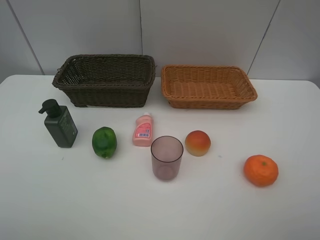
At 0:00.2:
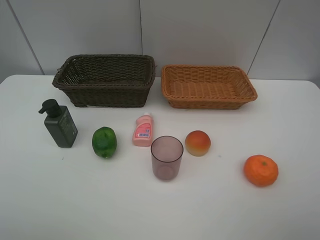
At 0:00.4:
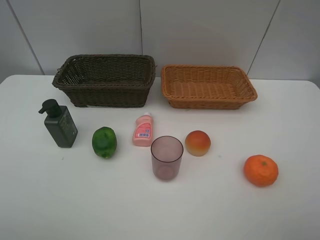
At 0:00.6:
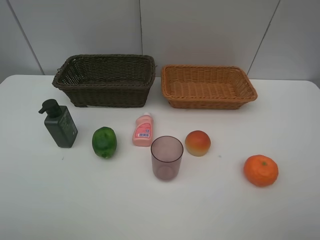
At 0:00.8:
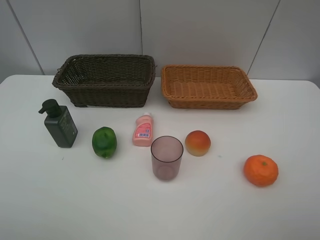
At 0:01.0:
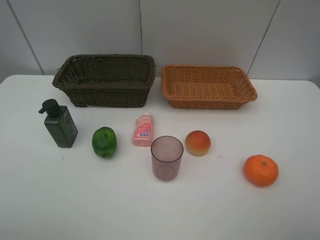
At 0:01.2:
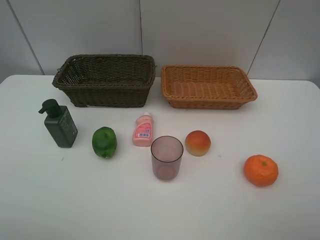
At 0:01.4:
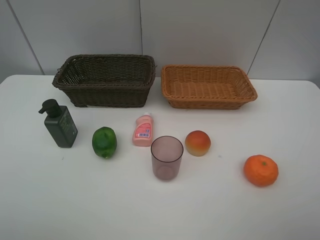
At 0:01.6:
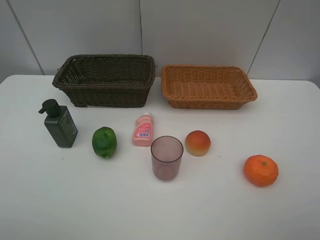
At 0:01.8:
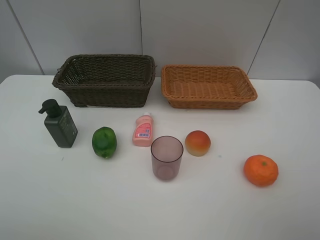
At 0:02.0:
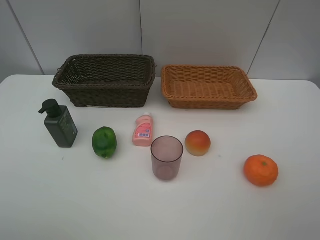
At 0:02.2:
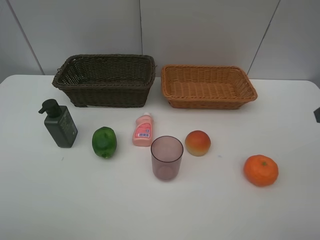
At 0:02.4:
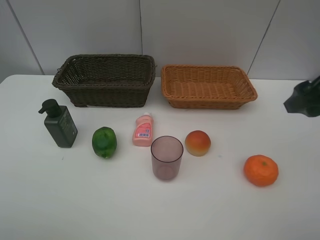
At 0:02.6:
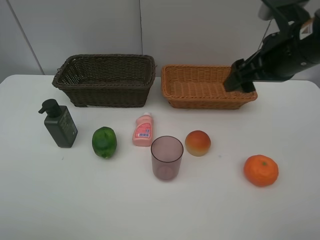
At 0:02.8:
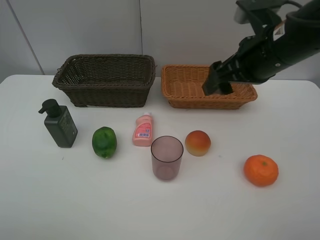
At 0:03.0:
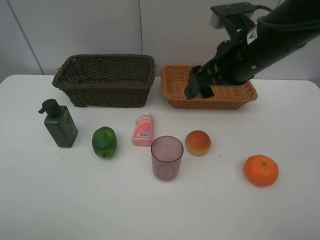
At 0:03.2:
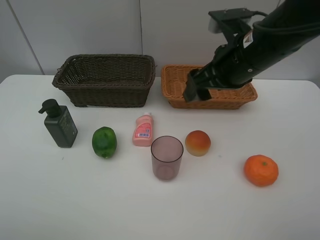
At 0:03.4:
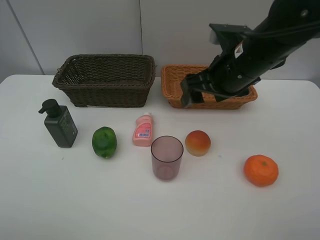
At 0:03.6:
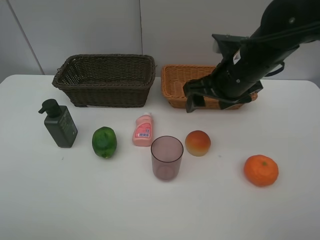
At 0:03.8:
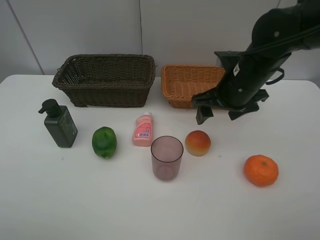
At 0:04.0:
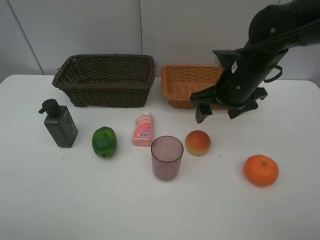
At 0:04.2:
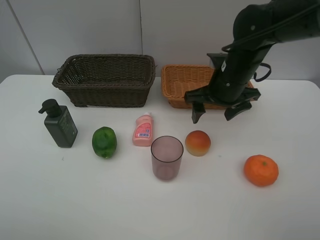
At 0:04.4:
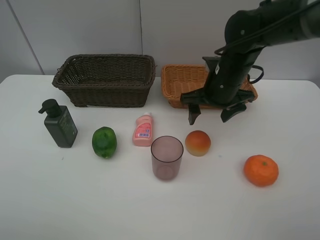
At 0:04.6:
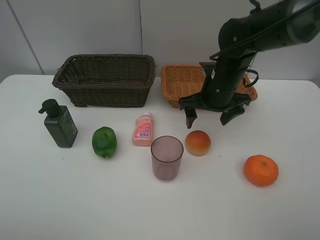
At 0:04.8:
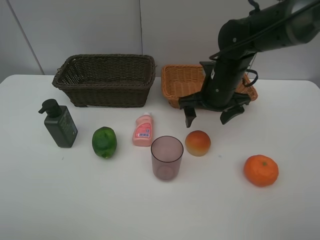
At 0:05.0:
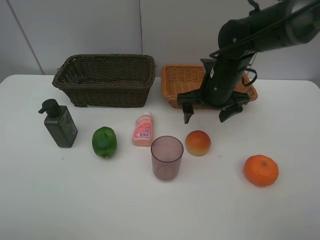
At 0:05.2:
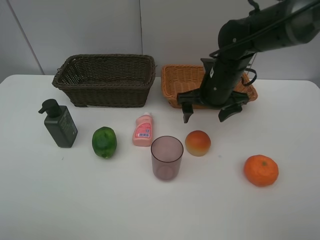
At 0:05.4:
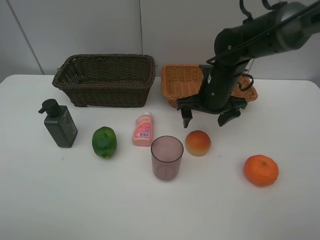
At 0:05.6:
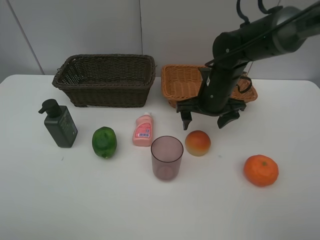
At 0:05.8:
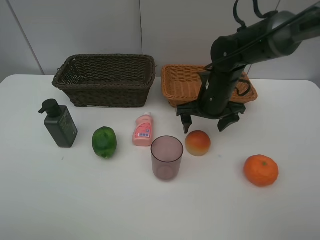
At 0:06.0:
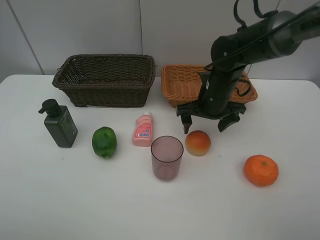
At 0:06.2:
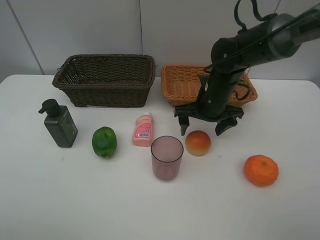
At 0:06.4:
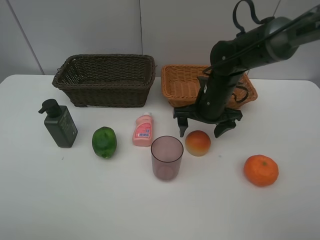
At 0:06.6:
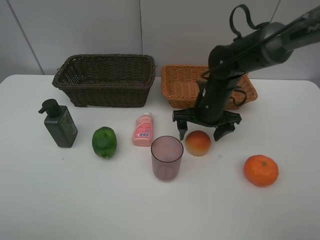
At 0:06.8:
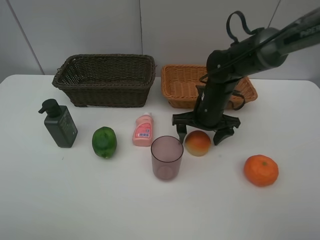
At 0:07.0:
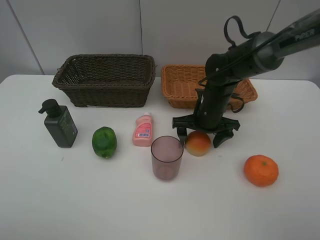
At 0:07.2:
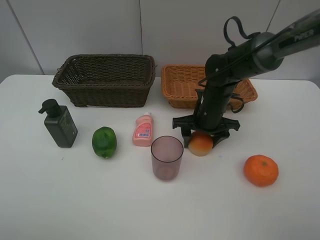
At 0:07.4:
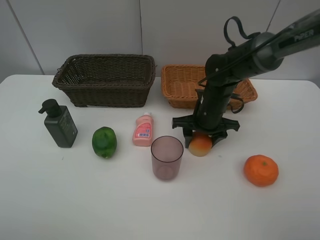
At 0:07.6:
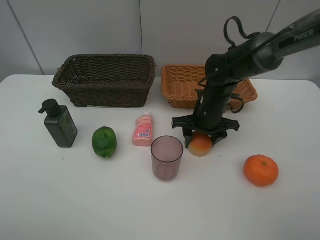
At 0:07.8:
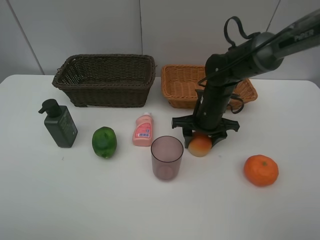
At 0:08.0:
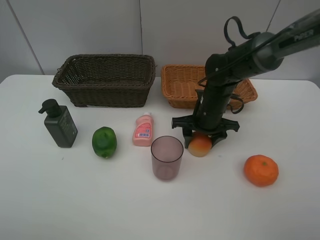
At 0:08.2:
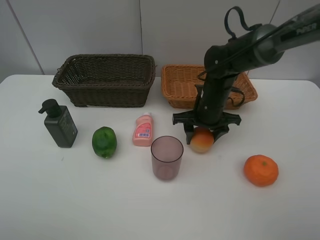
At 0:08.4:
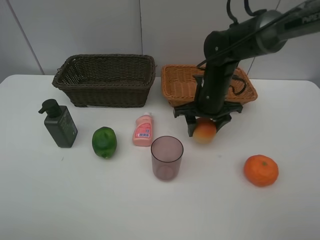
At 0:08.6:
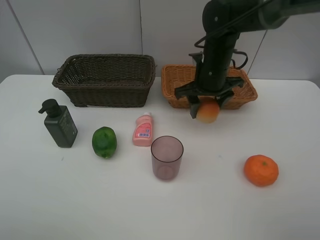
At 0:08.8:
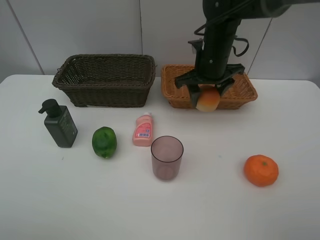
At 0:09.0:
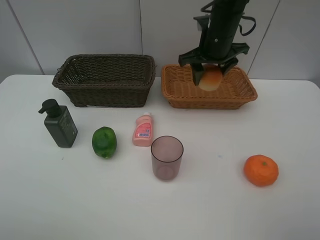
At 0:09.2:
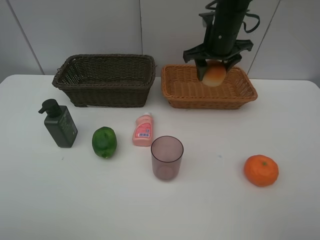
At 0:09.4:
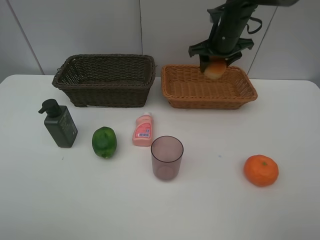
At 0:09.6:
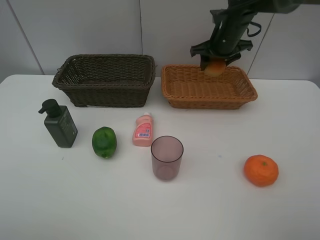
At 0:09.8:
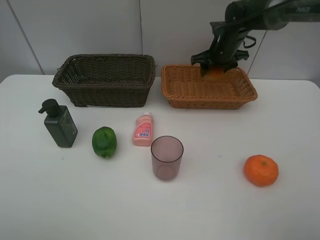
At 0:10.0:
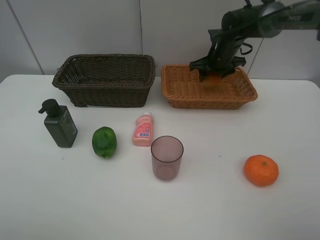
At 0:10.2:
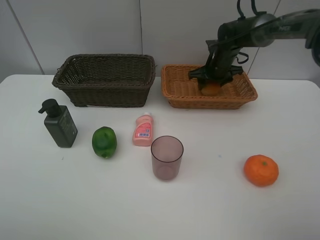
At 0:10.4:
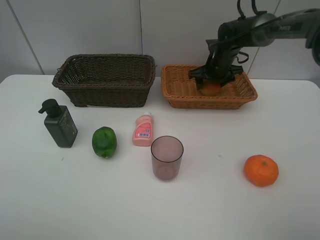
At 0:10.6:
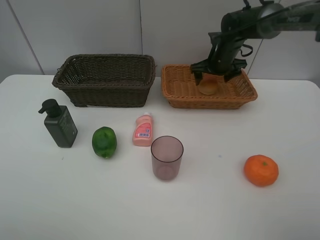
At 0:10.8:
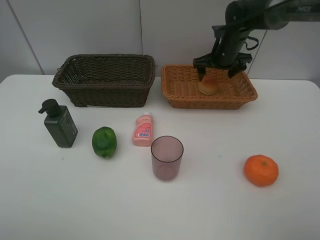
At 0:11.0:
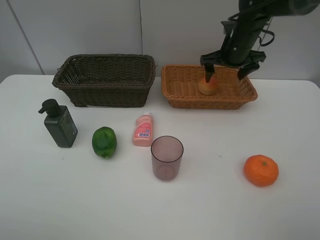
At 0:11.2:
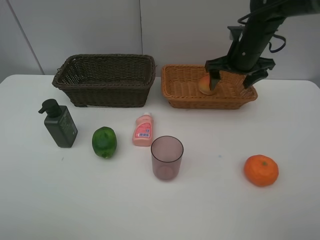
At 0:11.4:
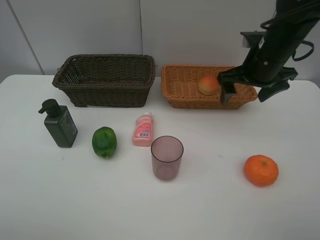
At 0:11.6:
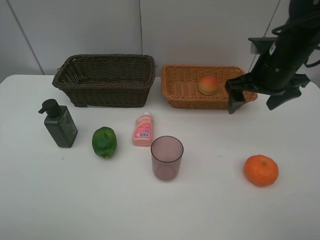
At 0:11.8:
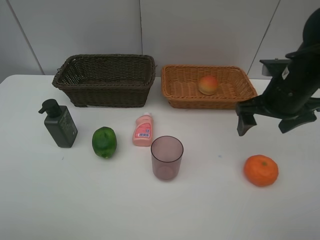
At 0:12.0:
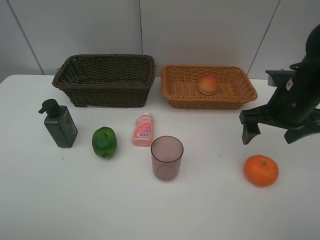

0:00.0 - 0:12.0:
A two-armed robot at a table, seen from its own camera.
Task of the whole recording: place multiple objects separately in different baskets.
0:00.0 - 0:01.6: Both grippers stay about where they are.
0:01.6 - 0:03.0: The right gripper shifts about 30 cm forward and to the left.
0:03.0 - 0:04.4: The right gripper goes approximately 10 cm downward and forward.
0:04.4 - 0:06.0: The grippers stay close to where they were, moving slightly.
0:06.0 - 0:07.6: The right gripper closes.
0:07.6 - 0:09.0: The right gripper goes about 15 cm upward and forward.
0:09.0 - 0:10.4: The right gripper heads downward and forward, covering some 15 cm, and opens.
0:10.4 - 0:12.0: The right gripper heads backward, covering some 25 cm.

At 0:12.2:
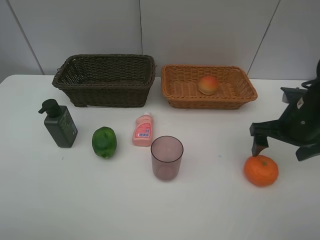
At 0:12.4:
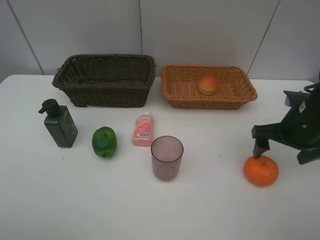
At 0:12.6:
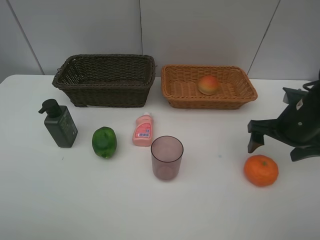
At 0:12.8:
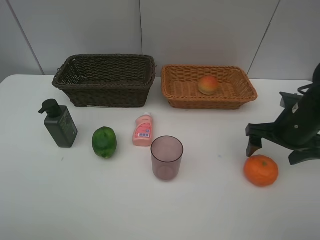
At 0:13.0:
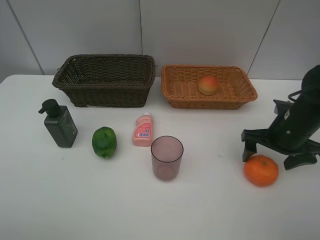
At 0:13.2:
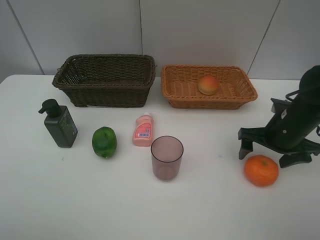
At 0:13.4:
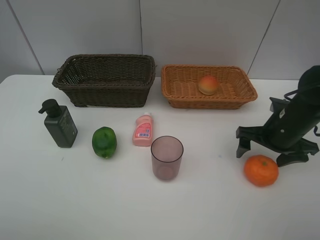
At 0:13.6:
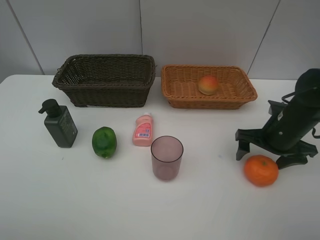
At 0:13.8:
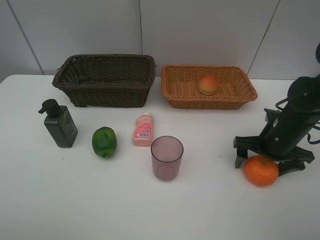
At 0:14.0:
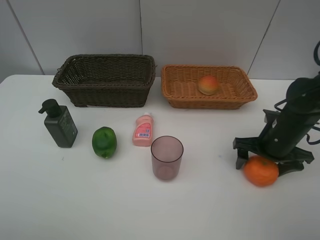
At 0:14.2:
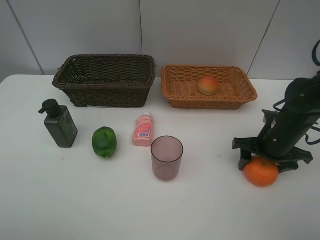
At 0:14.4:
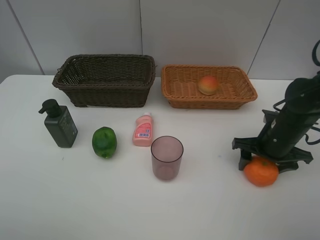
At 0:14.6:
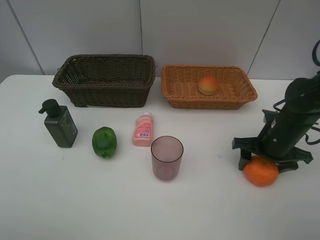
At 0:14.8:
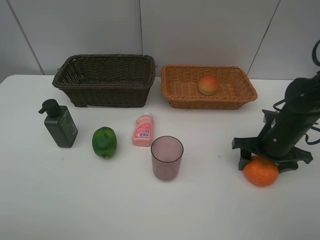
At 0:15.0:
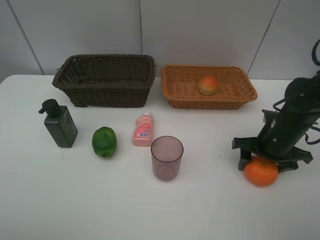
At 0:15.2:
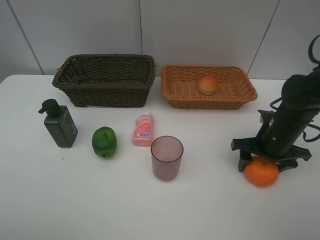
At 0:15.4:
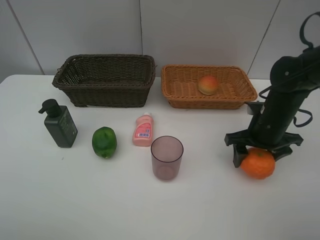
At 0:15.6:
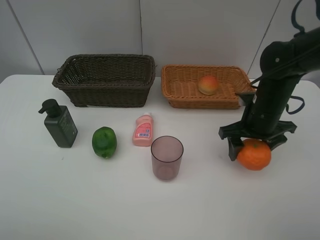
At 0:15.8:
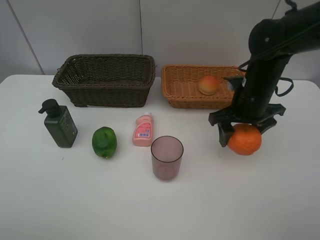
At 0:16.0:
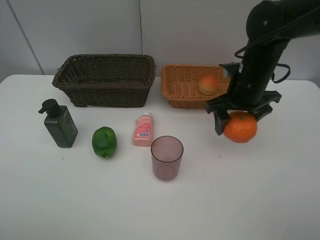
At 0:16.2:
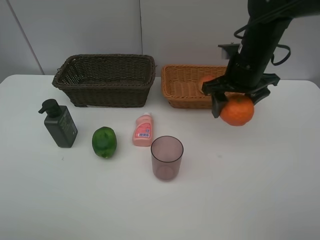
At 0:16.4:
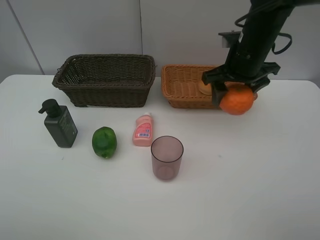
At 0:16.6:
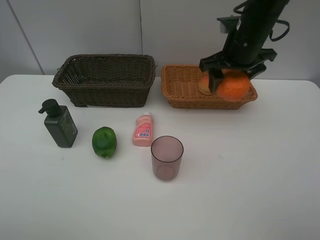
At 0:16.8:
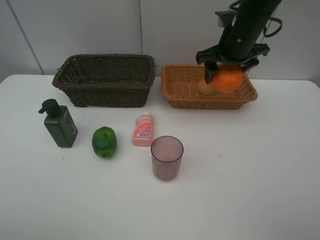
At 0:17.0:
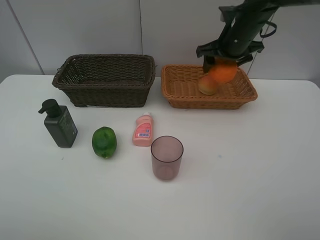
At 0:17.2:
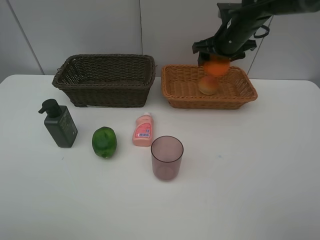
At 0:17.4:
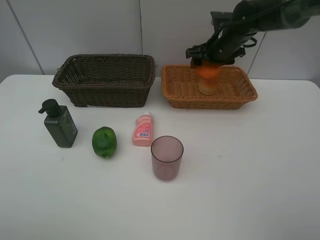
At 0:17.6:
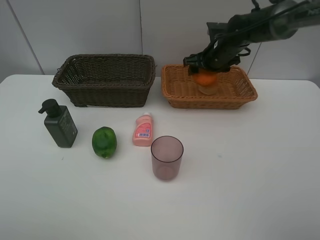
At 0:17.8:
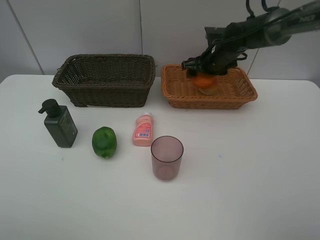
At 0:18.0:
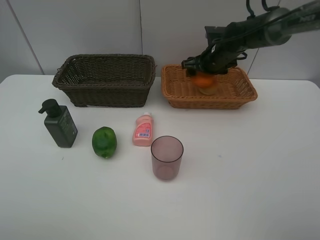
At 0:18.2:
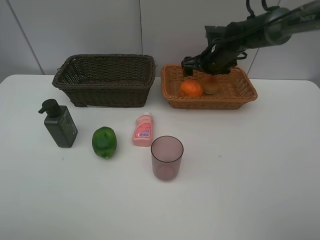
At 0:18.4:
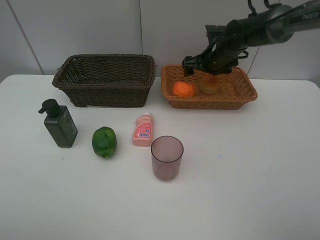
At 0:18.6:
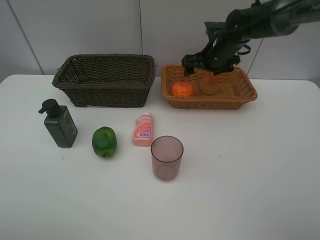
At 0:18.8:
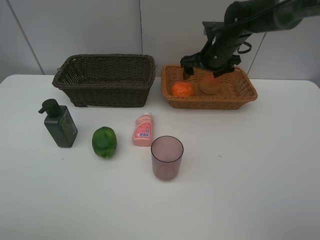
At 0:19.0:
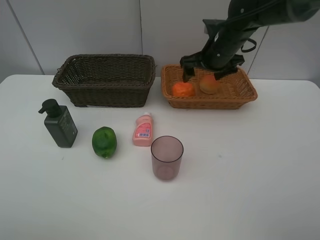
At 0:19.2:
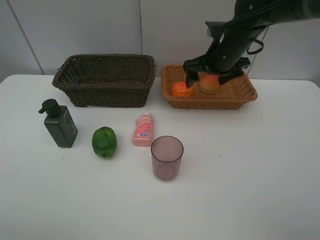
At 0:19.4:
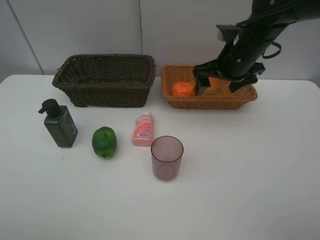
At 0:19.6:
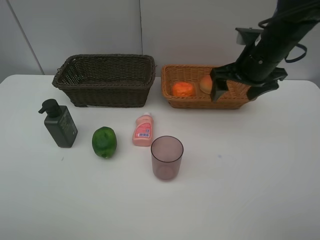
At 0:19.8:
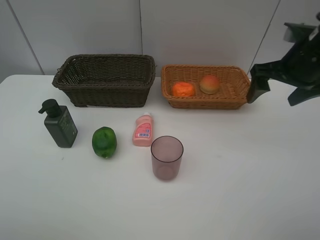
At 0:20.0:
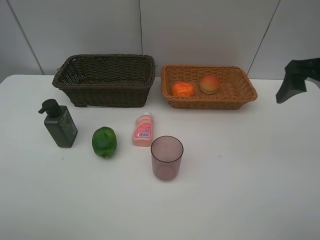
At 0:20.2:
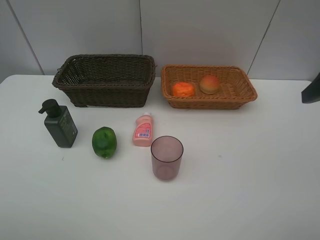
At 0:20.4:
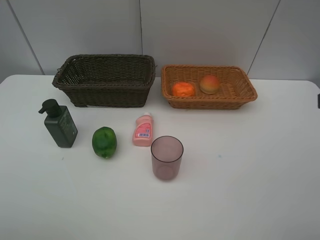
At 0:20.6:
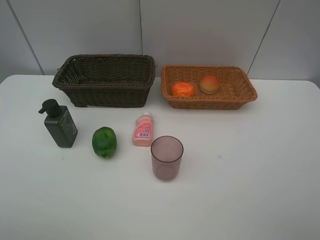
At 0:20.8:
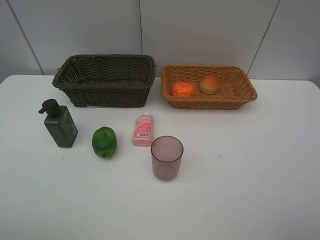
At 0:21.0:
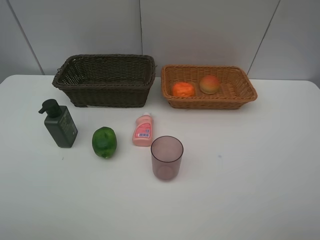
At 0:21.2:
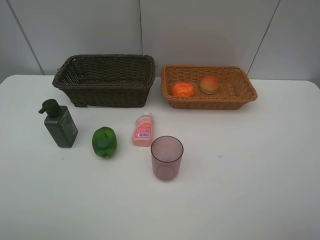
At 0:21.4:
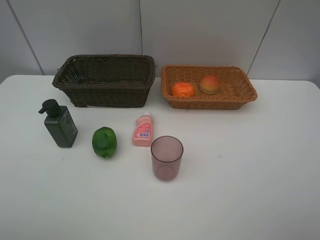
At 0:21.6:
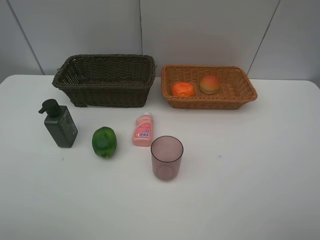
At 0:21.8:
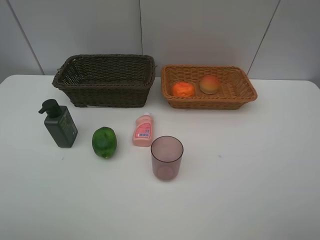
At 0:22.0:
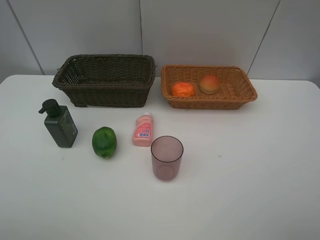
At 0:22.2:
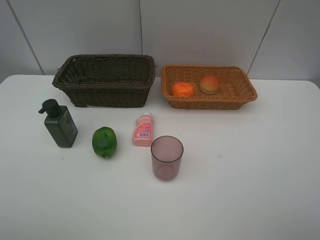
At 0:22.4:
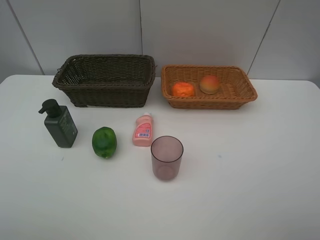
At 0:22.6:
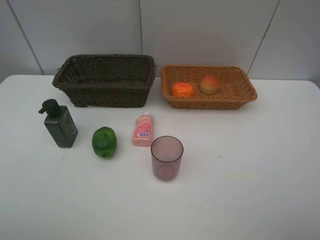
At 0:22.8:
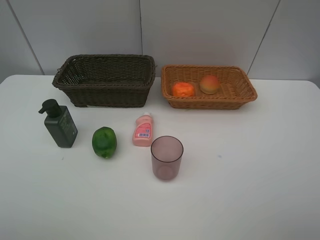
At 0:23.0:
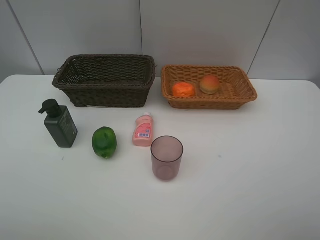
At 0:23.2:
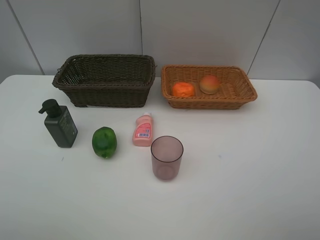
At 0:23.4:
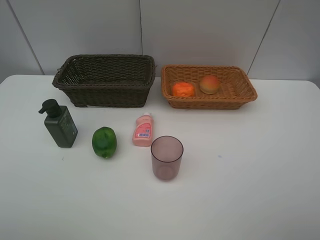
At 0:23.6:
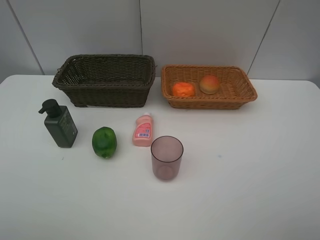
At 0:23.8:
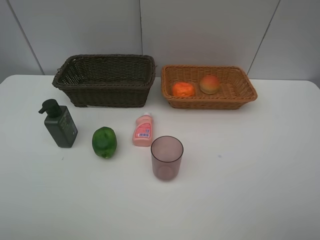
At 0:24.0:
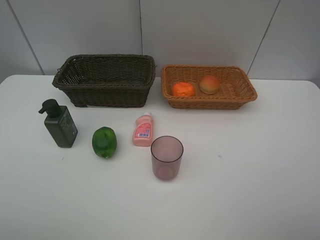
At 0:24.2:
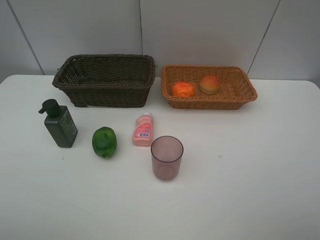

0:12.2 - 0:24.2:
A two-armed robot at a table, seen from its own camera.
Task of the whole recording: place multiple objects separately in different baskets.
0:12.2 - 0:13.8: The right gripper moves downward, about 5 cm.
0:13.8 - 0:15.2: The right gripper closes up.
0:15.2 - 0:16.6: The right gripper heads upward, forward and to the left, covering some 20 cm.
0:16.6 - 0:18.2: The right gripper moves forward and downward, about 15 cm, and opens its fingers.
0:18.2 - 0:19.8: The right gripper travels backward, to the right and upward by some 25 cm.
0:19.8 - 0:21.2: The right gripper goes roughly 30 cm backward.
